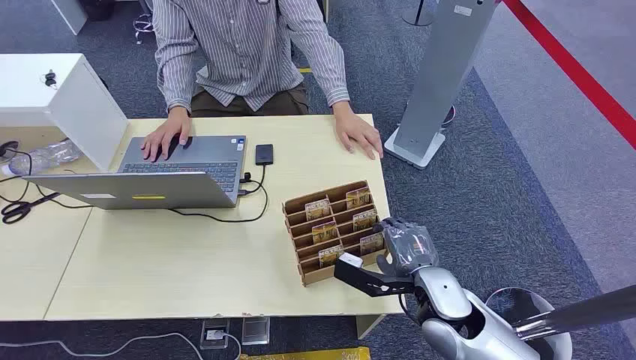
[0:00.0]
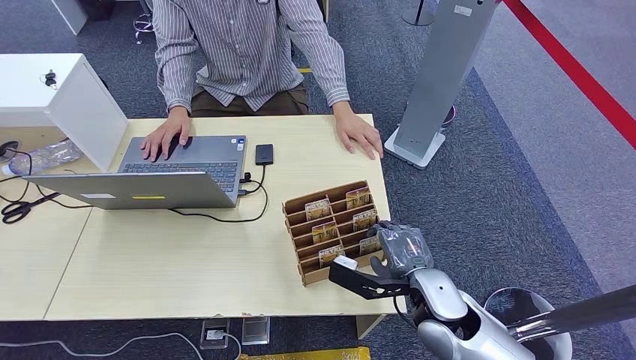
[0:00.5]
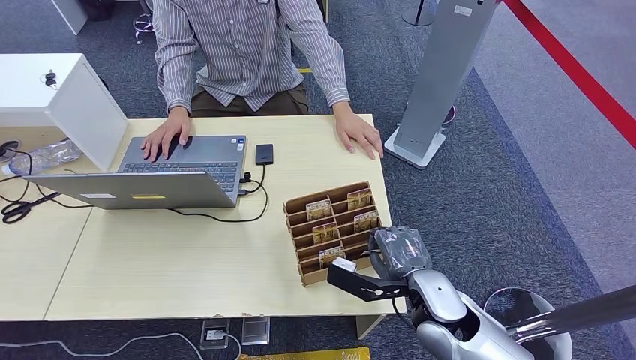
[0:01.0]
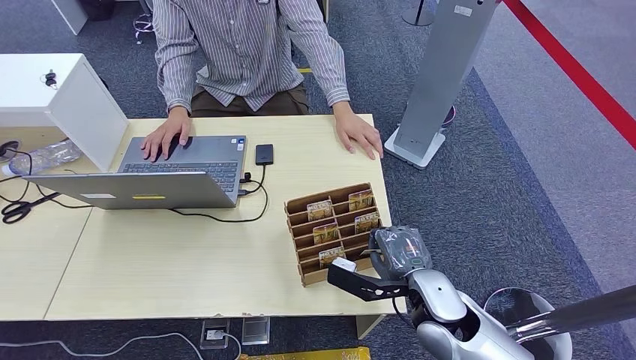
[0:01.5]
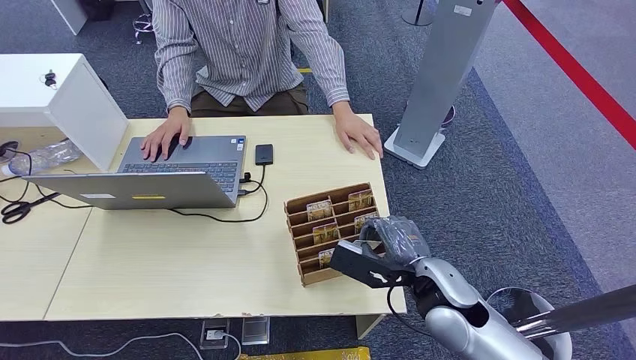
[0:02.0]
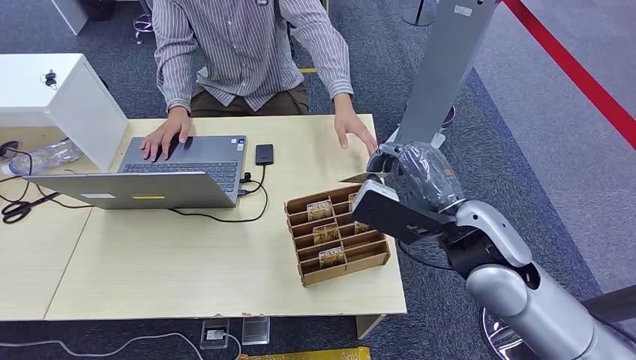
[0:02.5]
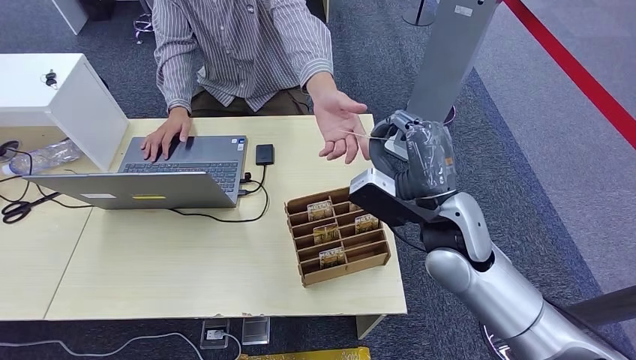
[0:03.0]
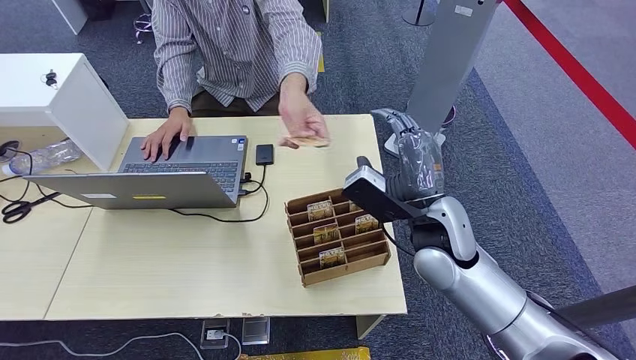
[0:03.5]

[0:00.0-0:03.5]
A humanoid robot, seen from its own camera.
Step, 0:00.0 to 0:02.0: Pick up the key card from the card box.
Step, 0:03.0 to 0:03.5: Hand the key card to the target.
0:02.0 to 0:03.5: The right hand heads forward and upward, covering some 10 cm.

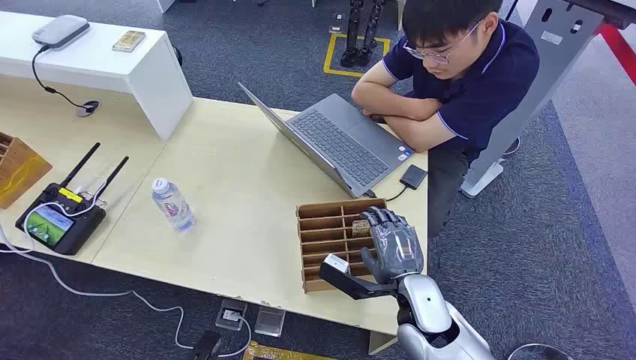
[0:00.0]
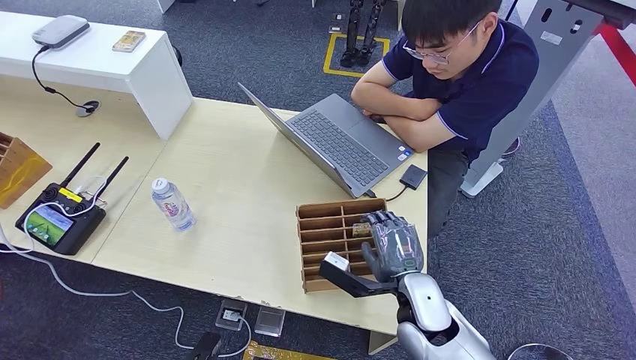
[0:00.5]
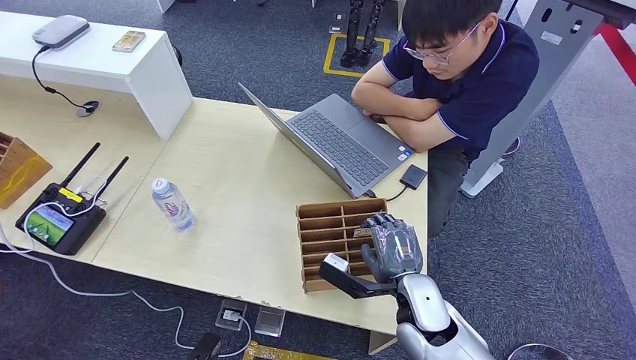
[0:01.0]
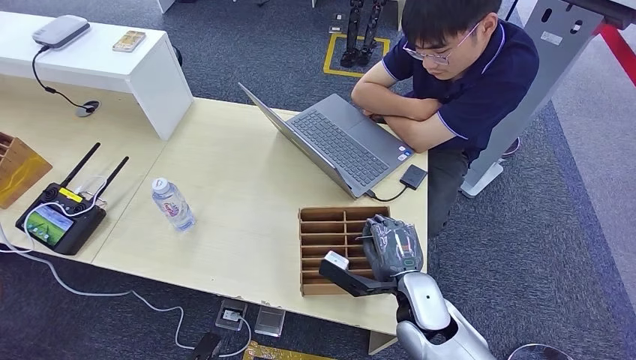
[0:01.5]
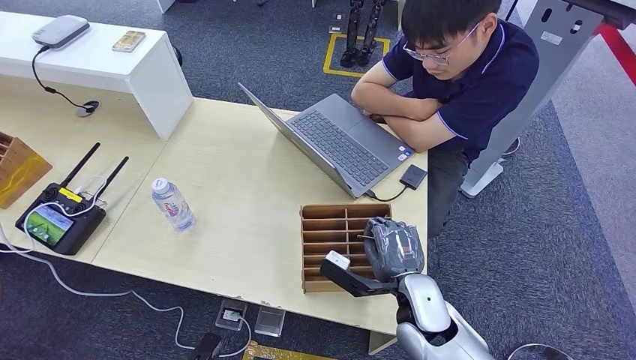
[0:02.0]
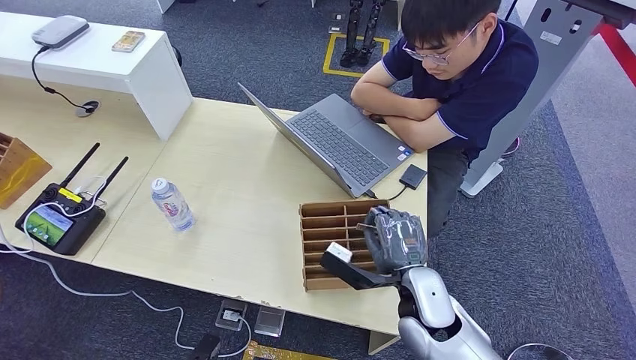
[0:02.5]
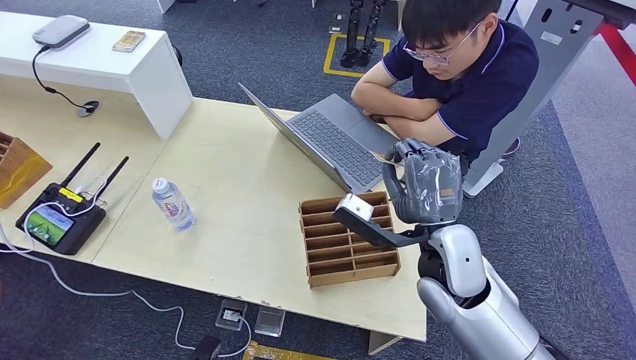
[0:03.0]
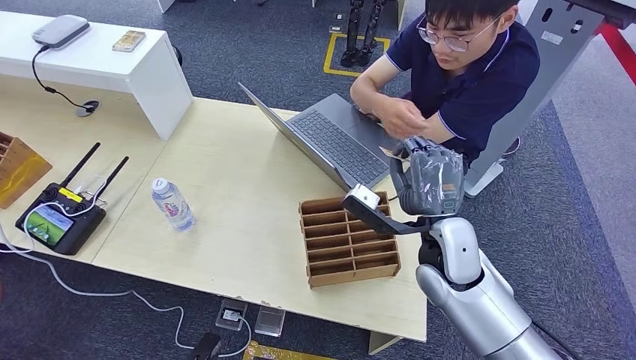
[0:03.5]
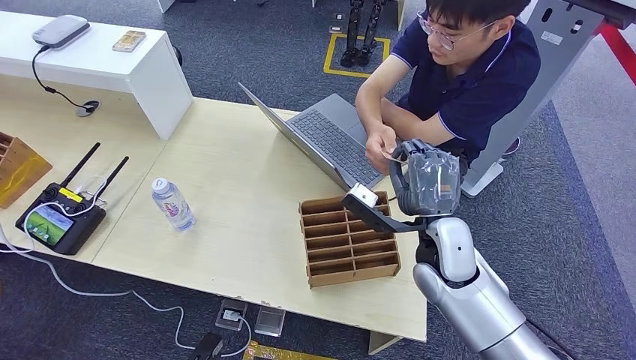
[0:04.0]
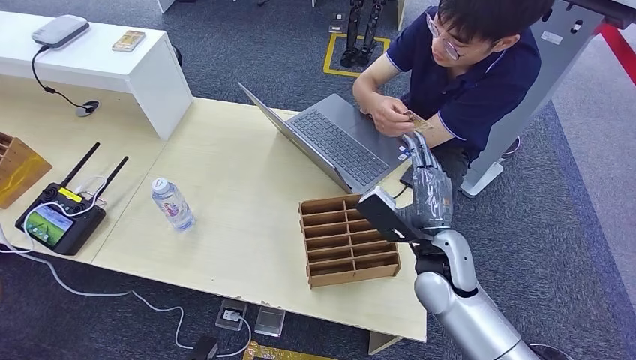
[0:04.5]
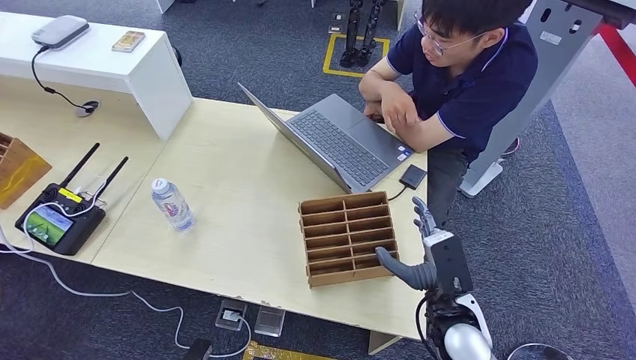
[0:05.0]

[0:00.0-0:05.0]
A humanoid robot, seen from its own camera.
Step, 0:00.0 to 0:02.5: Pick up the key card from the card box.
Step, 0:03.5 to 0:05.0: Hand the key card to the target.
0:02.5 to 0:05.0: The right hand is displaced to the right by roughly 5 cm, and travels upward and back again, about 10 cm each way.
